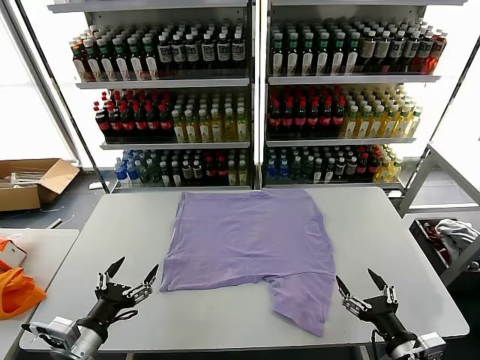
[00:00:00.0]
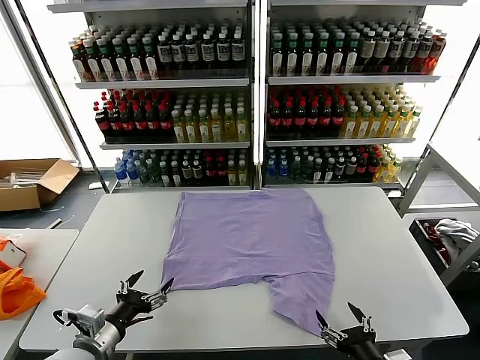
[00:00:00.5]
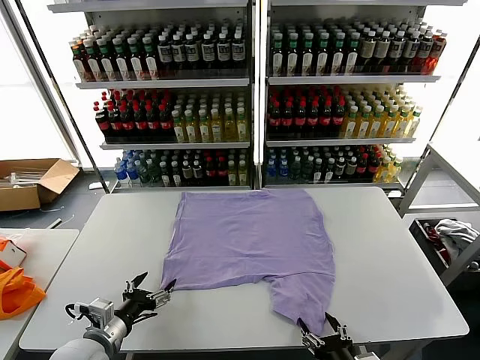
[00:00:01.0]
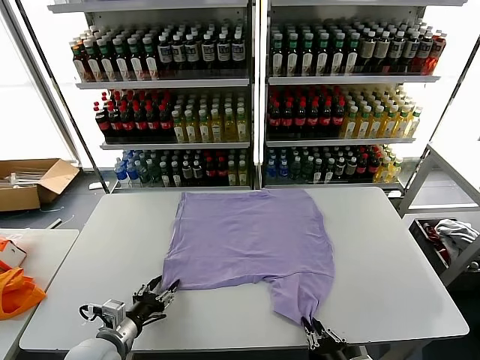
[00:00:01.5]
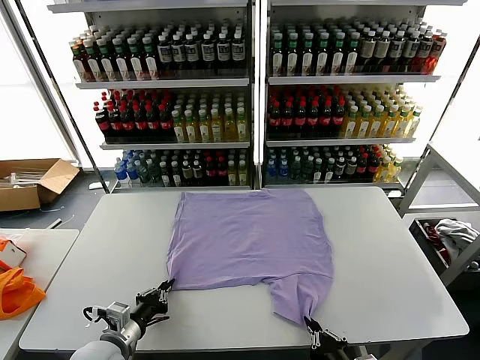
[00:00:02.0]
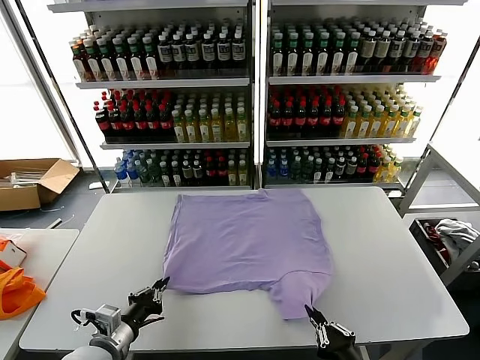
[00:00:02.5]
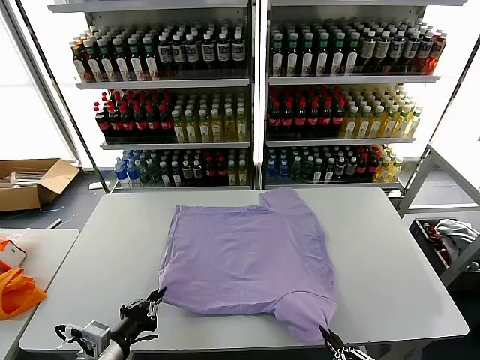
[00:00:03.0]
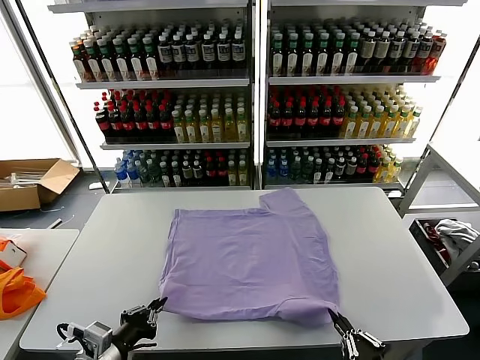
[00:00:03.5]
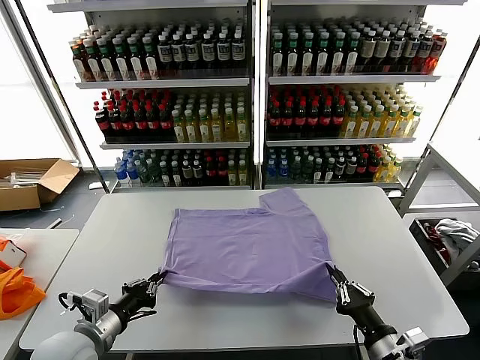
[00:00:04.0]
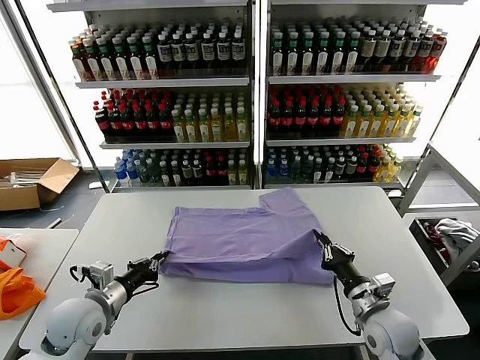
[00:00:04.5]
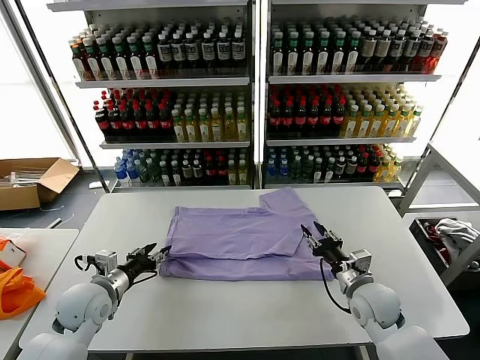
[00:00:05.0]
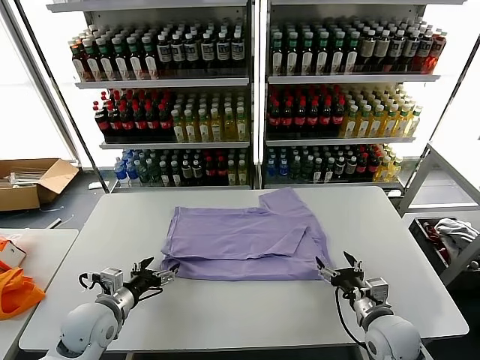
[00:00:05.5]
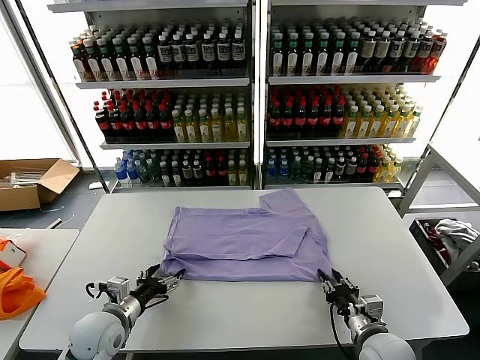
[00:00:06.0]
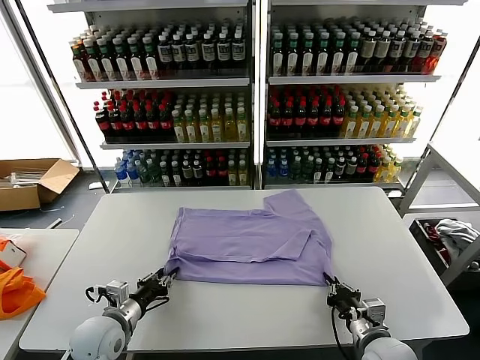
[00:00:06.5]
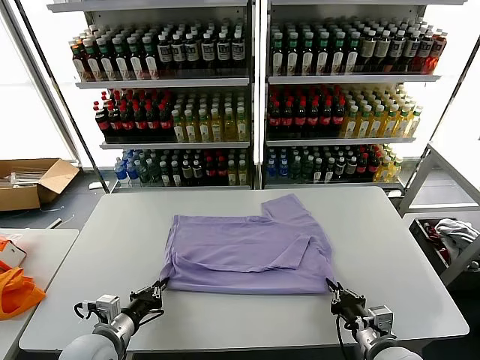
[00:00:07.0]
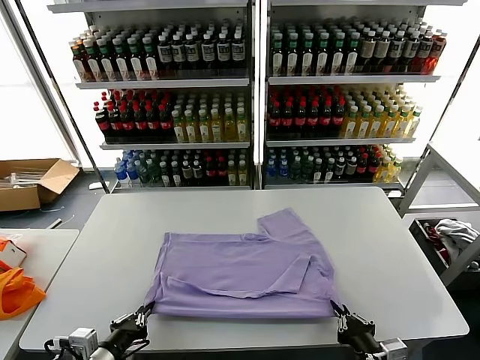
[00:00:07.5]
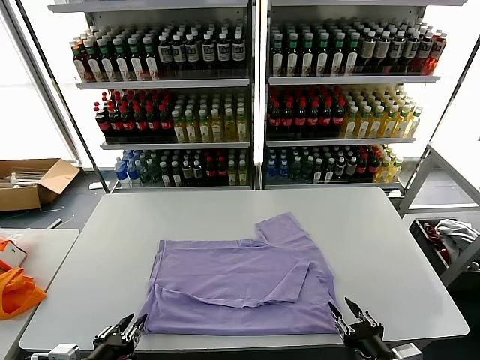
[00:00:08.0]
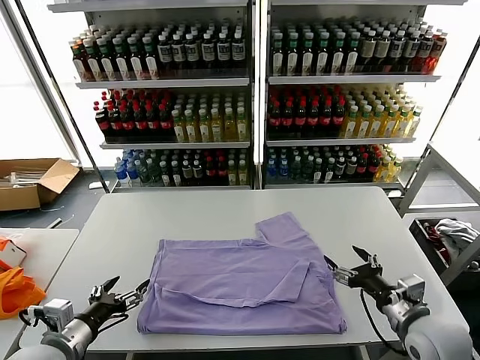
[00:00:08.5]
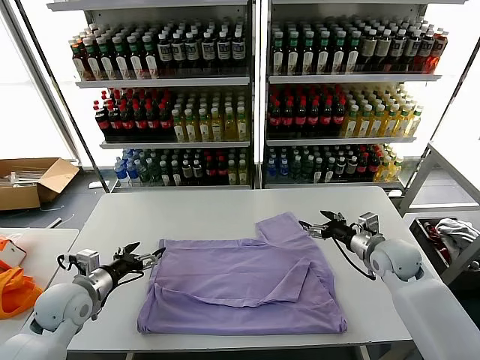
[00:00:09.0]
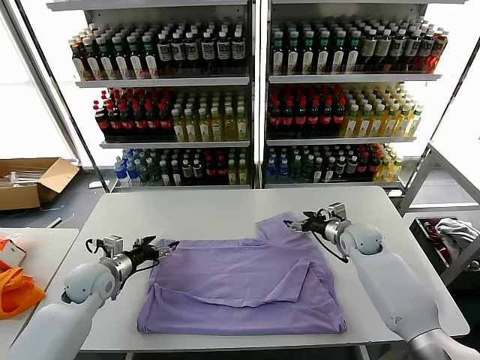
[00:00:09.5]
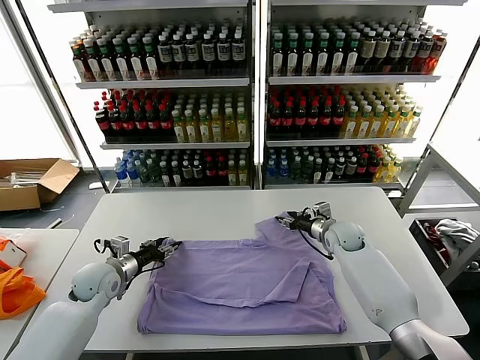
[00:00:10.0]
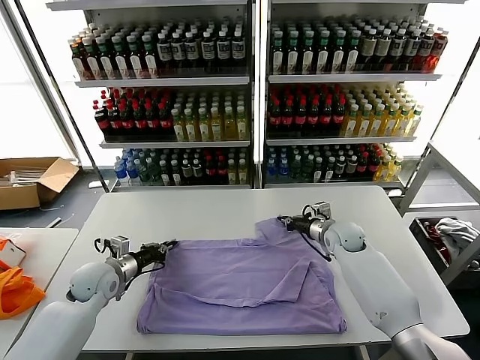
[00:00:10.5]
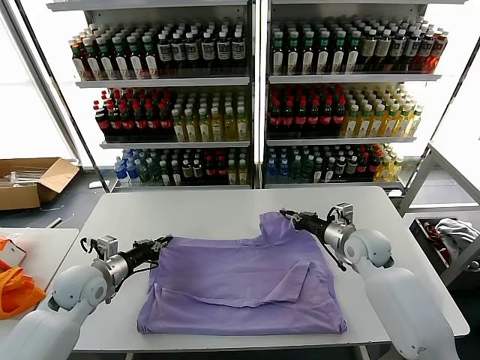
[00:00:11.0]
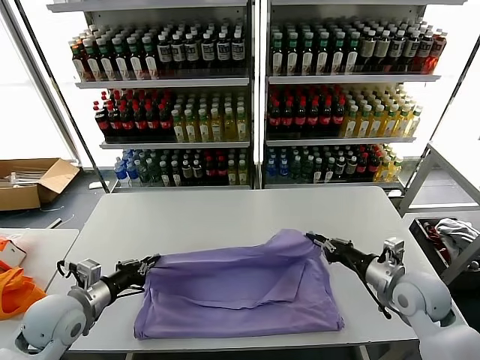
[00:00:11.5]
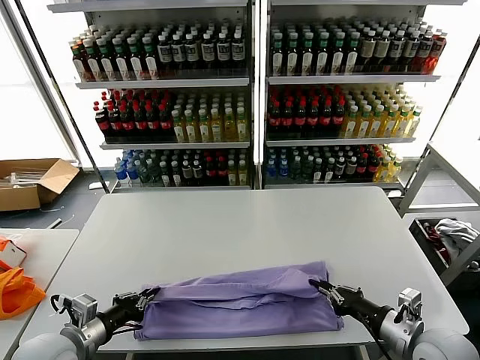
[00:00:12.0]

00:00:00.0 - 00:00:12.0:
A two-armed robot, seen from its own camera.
Task of the whole recording: fold and organize the clothes.
Step, 00:00:00.0 - 00:00:02.0: use both grippers simultaneously to clamp the lower edge of the clothing fabric.
Step, 00:00:02.5 - 00:00:04.5: use both grippers to drag the lower edge of the fabric forward and fold it over the upper edge.
Step, 00:00:05.0 - 00:00:08.0: Drag the clothes downward with both gripper.
Step, 00:00:08.5 - 00:00:10.5: use both grippers simultaneously to clamp the upper edge of the clothing fabric.
00:00:02.0 - 00:00:04.0: The left gripper shifts roughly 10 cm upward. Meanwhile the right gripper goes approximately 10 cm to the right and forward.
00:00:04.0 - 00:00:06.0: The right gripper goes approximately 5 cm forward, and opens, then closes once more, while the left gripper goes some 10 cm downward and forward, and opens up.
00:00:06.0 - 00:00:08.0: Both grippers move backward and upward, some 15 cm. The left gripper closes its fingers.
00:00:08.0 - 00:00:10.0: Both grippers move forward, some 35 cm. The left gripper opens, then closes once more, while the right gripper opens and closes again.
00:00:10.0 - 00:00:12.0: The left gripper moves backward, about 20 cm, and closes its fingers. Meanwhile the right gripper shifts some 30 cm backward, and closes up.

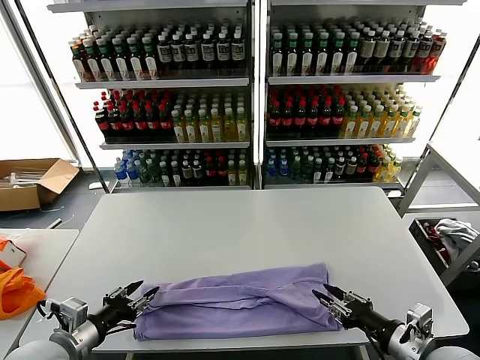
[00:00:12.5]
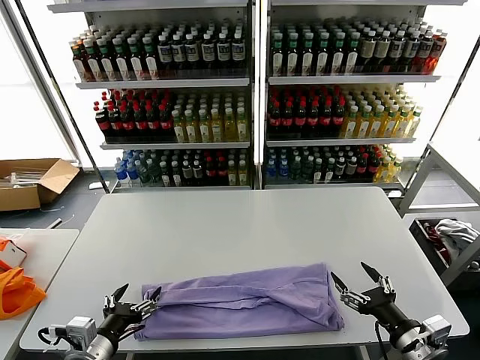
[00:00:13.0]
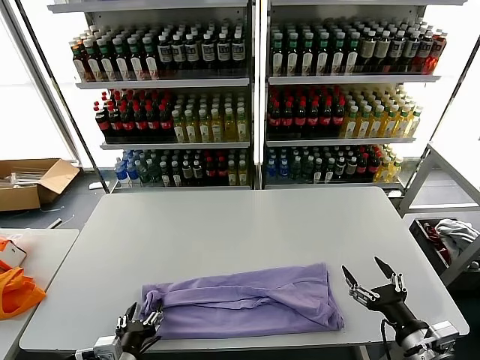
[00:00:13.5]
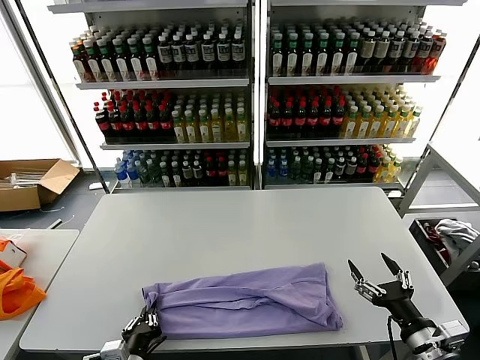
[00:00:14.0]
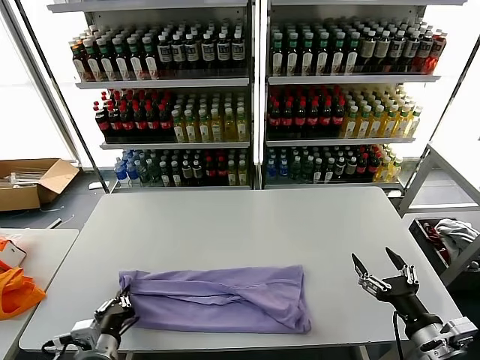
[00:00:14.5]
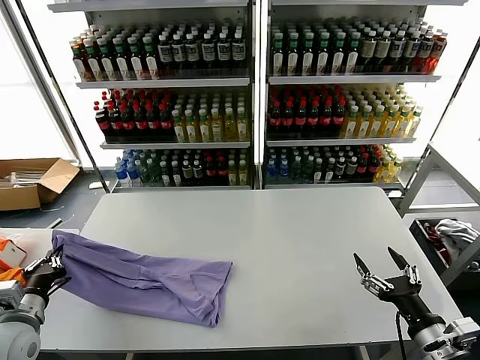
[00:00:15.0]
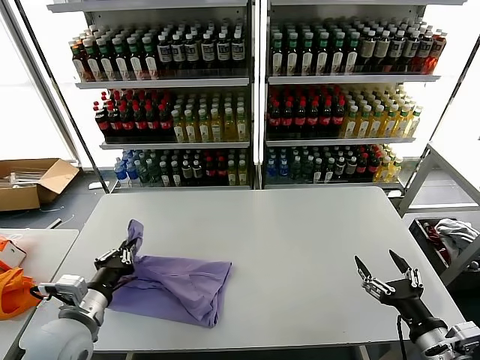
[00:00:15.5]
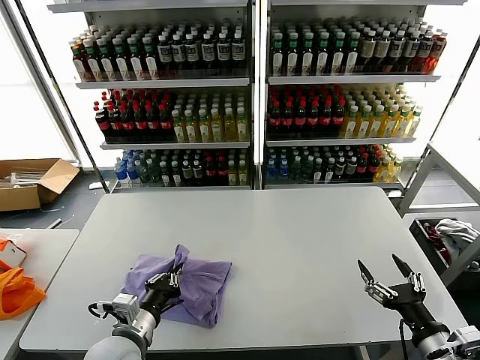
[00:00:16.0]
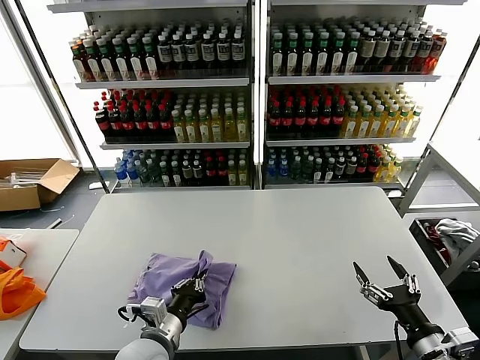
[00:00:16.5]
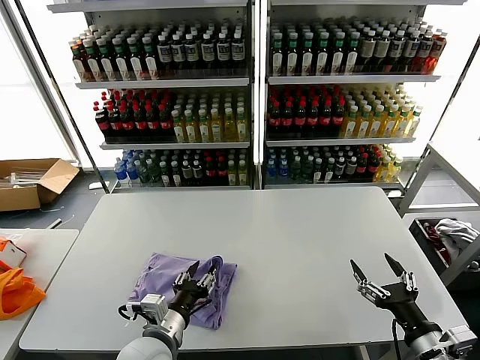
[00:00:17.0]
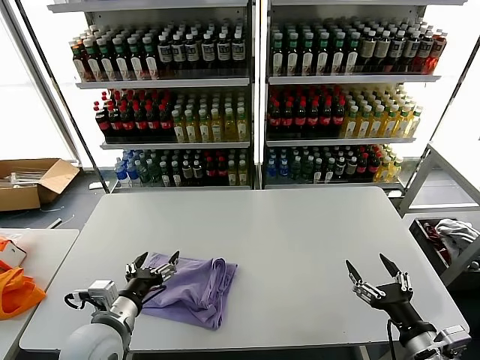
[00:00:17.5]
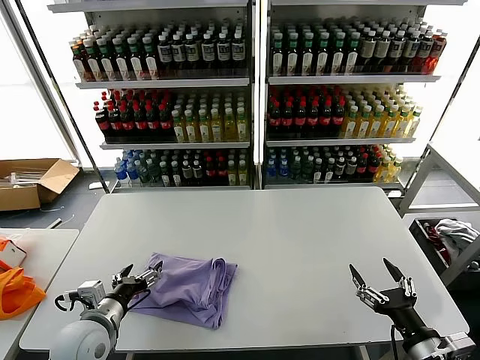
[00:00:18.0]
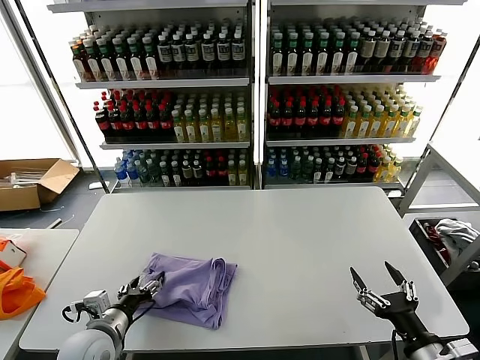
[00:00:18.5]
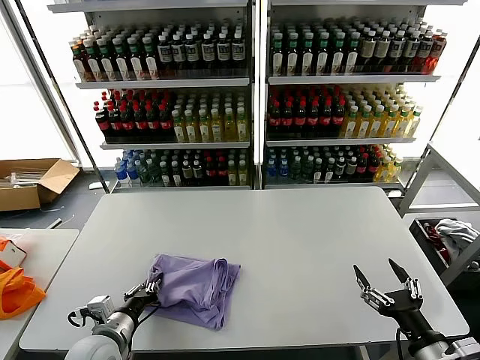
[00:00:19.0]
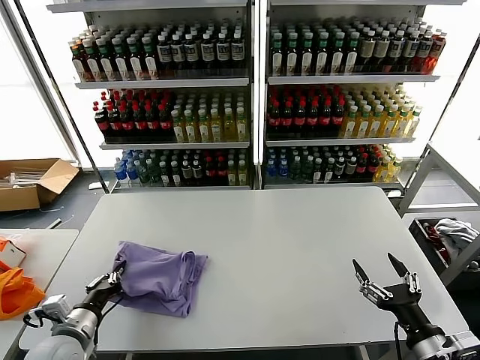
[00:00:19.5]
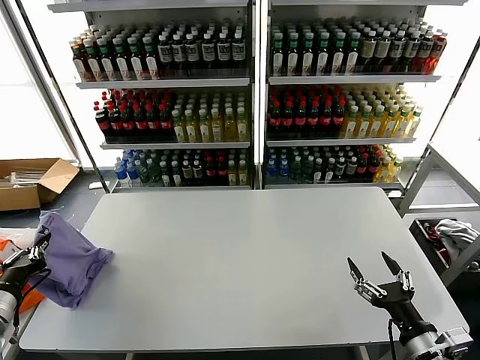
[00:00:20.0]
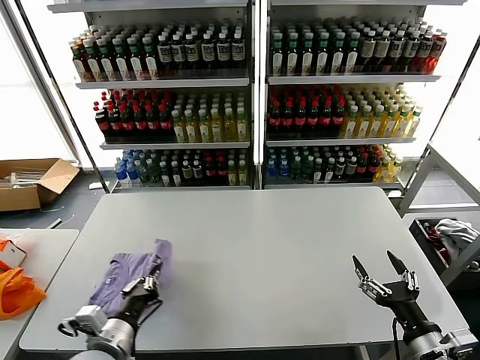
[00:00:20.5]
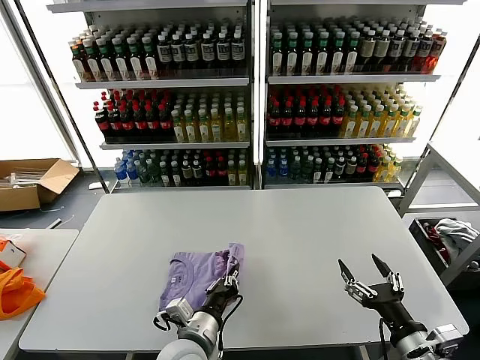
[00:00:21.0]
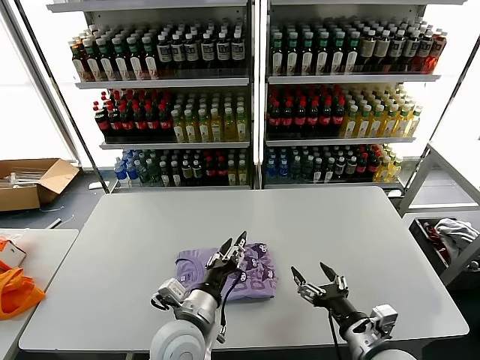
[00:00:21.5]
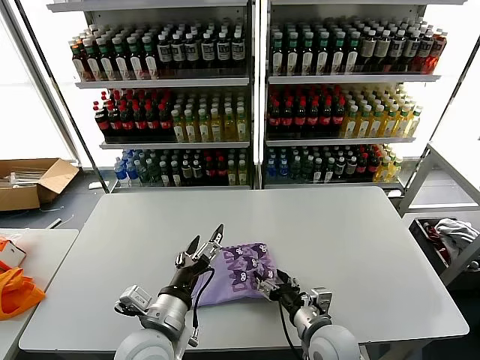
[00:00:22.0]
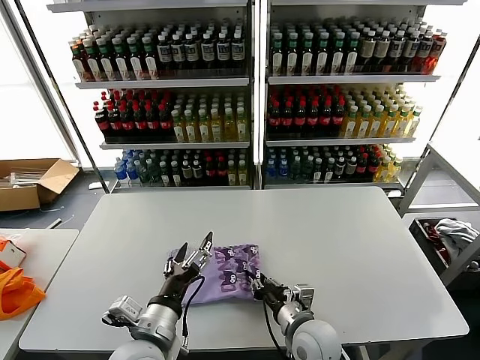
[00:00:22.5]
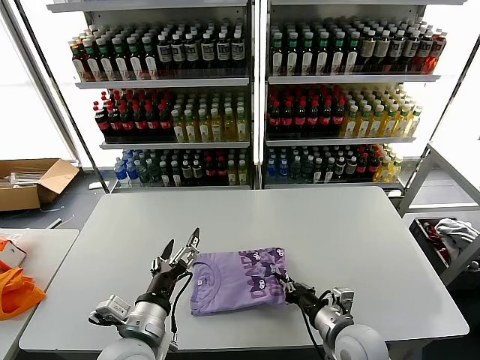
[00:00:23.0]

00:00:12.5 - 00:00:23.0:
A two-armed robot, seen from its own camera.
Task of the whole recording: fold and organize the clothes.
Step, 00:00:13.0 - 00:00:14.0: use the left gripper to clamp the left edge of the fabric.
Step, 00:00:14.5 - 00:00:17.0: use the left gripper to drag the left edge of the fabric to the left and folds it over the right edge.
Step, 00:00:17.5 - 00:00:21.0: Flip the folded clothes over with left gripper.
00:00:12.5 - 00:00:14.5: The left gripper goes roughly 10 cm downward and to the right, and closes up; the right gripper opens.
00:00:14.5 - 00:00:16.5: The left gripper goes roughly 10 cm to the right.
00:00:16.5 - 00:00:19.0: The left gripper heads to the left, covering approximately 10 cm, and opens, then closes once more.
00:00:19.0 - 00:00:21.0: The left gripper goes roughly 15 cm to the right.
00:00:21.0 - 00:00:23.0: The right gripper is displaced to the left, forward and downward by roughly 15 cm, and closes its fingers. The left gripper is displaced to the left and upward by about 10 cm, and opens.

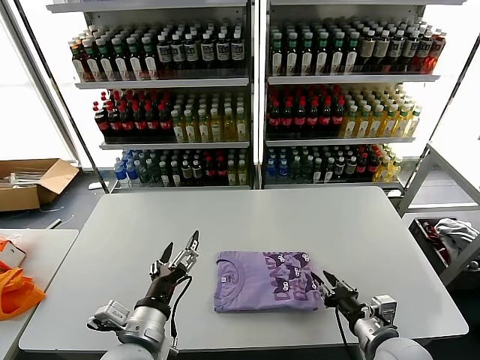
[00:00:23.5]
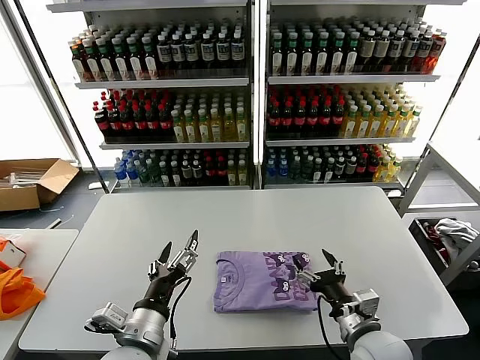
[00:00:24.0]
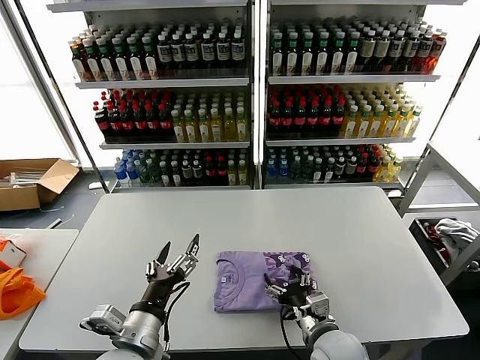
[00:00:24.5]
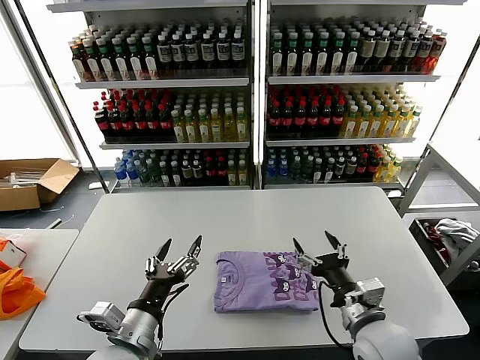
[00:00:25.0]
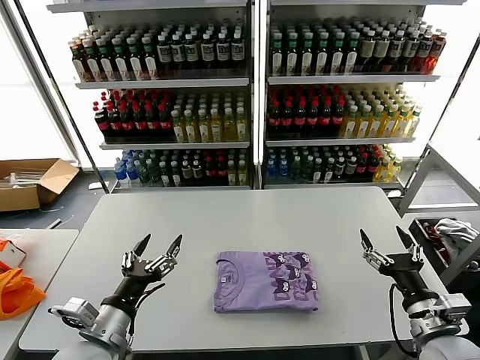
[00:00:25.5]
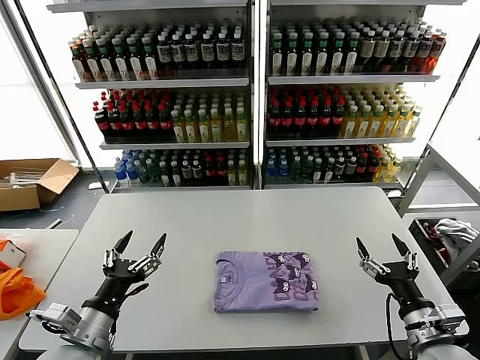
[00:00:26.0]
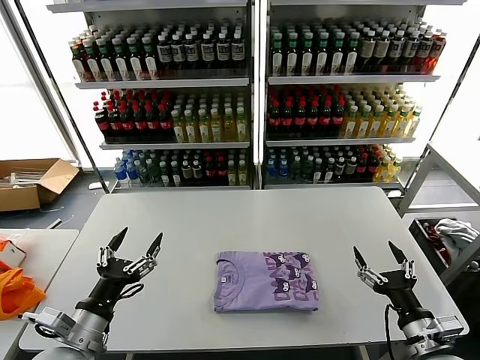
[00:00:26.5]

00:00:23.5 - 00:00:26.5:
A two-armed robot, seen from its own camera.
Task of the whole recording: fold and organize the clothes.
00:00:23.5 - 00:00:25.0: The right gripper shifts approximately 5 cm to the left, and opens.
00:00:25.0 - 00:00:26.5: The right gripper moves to the right, about 15 cm. Meanwhile the left gripper goes approximately 10 cm to the left.
